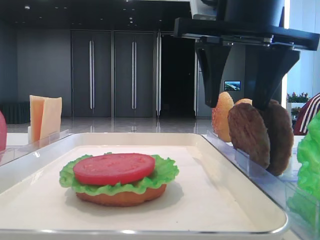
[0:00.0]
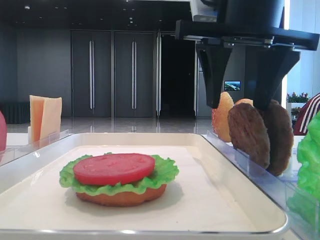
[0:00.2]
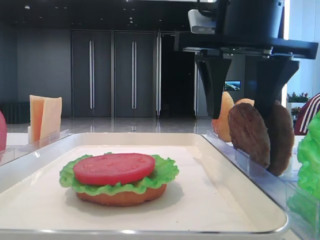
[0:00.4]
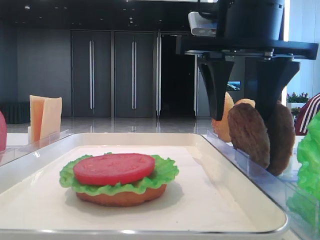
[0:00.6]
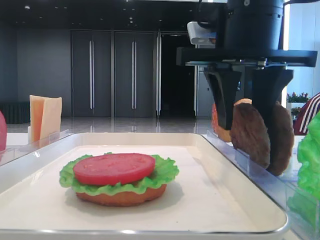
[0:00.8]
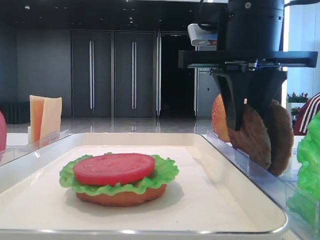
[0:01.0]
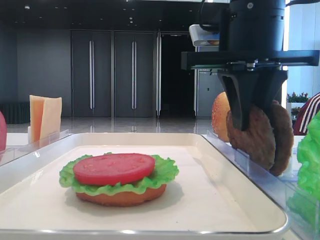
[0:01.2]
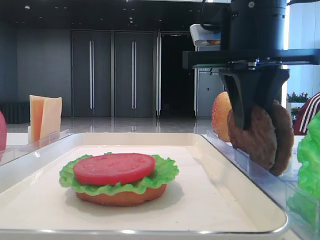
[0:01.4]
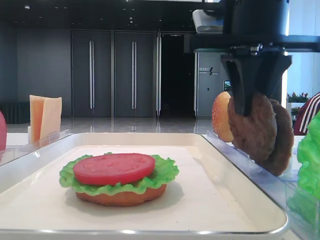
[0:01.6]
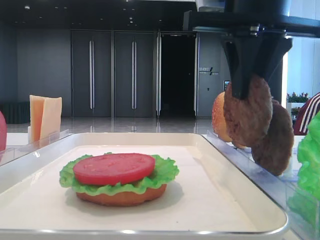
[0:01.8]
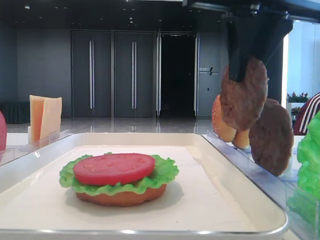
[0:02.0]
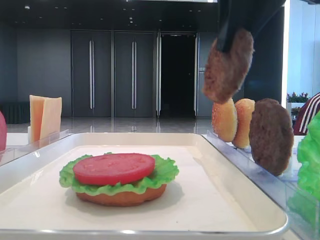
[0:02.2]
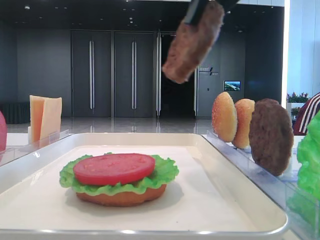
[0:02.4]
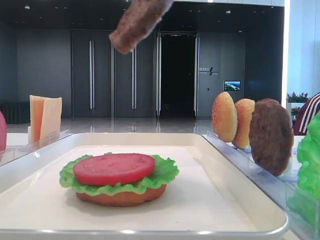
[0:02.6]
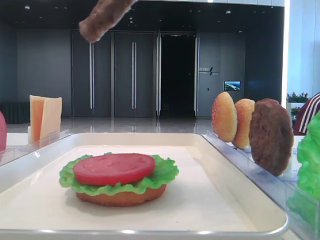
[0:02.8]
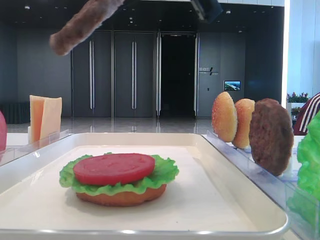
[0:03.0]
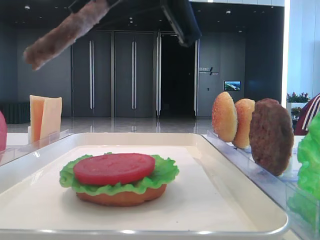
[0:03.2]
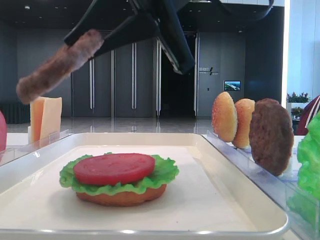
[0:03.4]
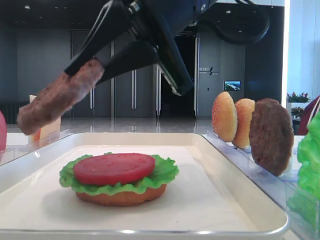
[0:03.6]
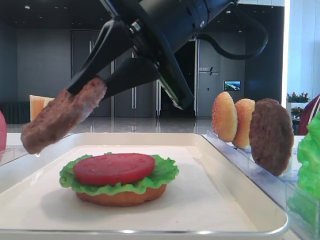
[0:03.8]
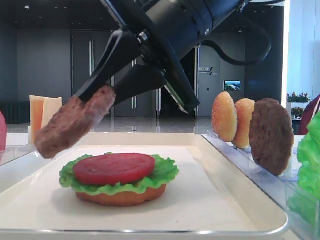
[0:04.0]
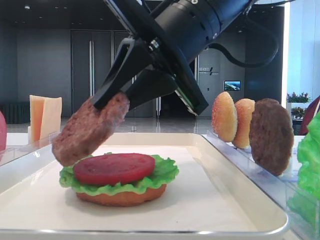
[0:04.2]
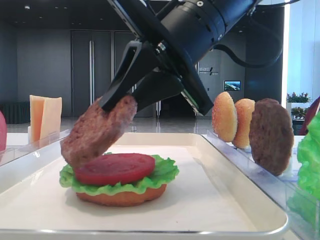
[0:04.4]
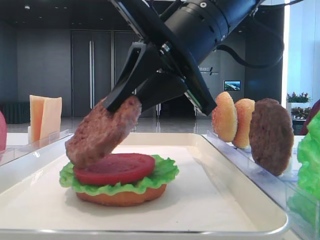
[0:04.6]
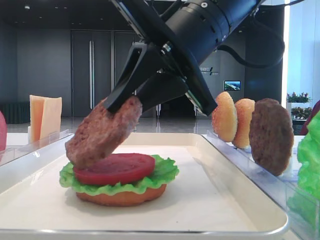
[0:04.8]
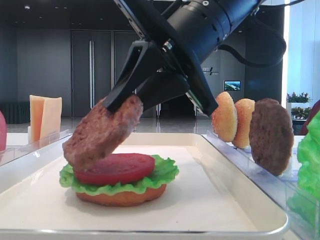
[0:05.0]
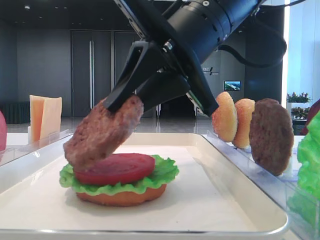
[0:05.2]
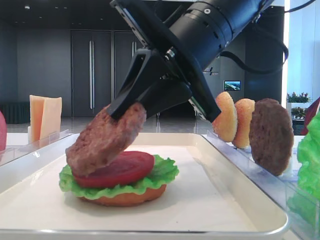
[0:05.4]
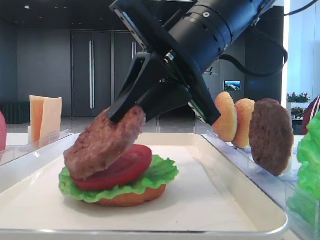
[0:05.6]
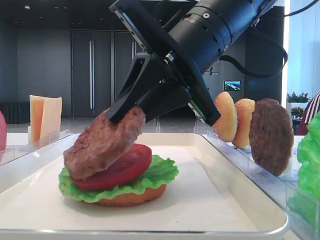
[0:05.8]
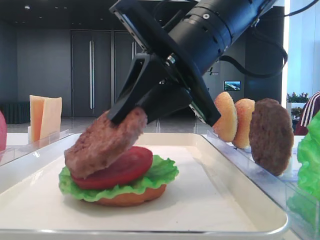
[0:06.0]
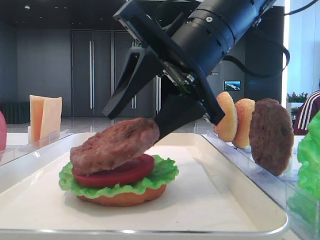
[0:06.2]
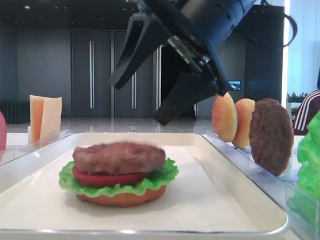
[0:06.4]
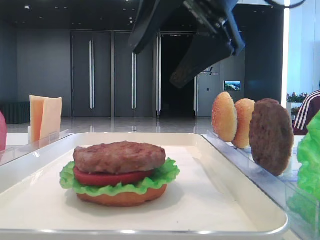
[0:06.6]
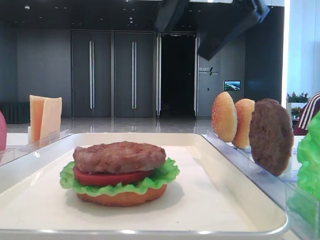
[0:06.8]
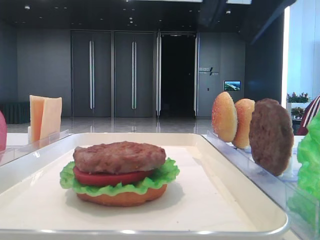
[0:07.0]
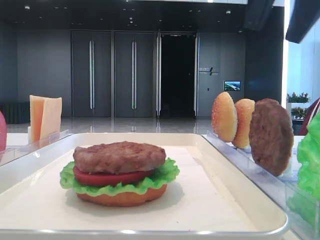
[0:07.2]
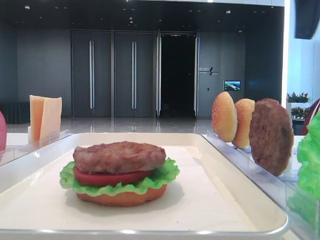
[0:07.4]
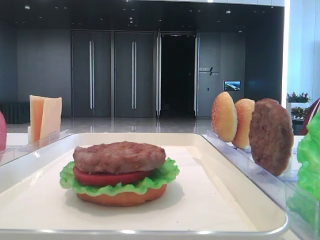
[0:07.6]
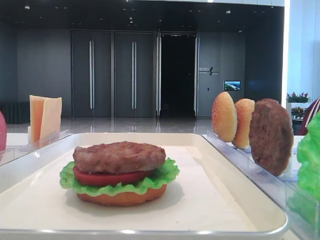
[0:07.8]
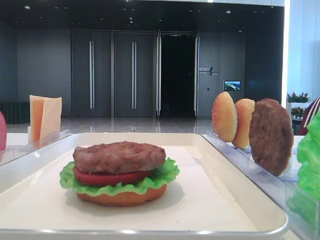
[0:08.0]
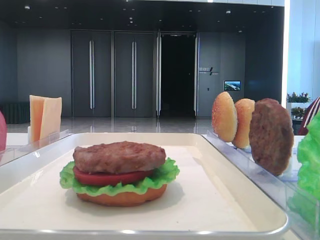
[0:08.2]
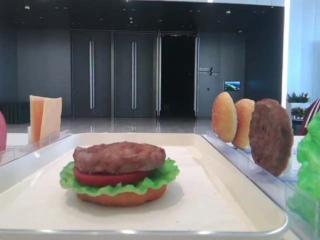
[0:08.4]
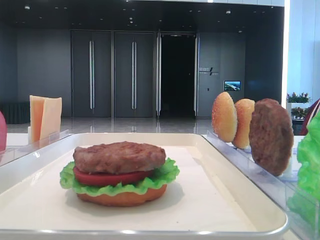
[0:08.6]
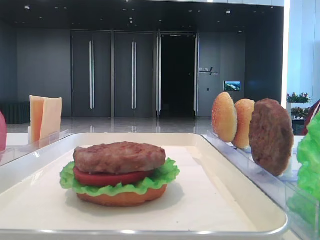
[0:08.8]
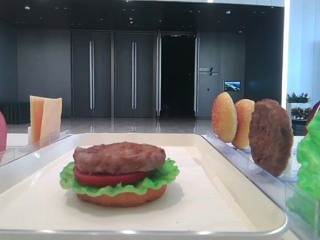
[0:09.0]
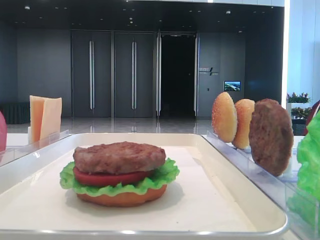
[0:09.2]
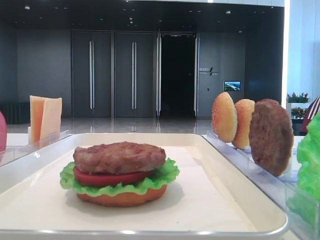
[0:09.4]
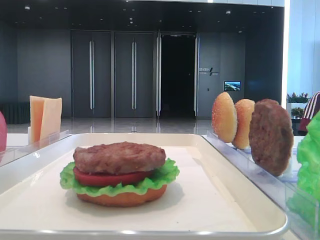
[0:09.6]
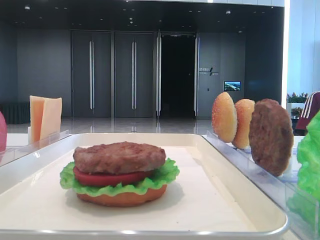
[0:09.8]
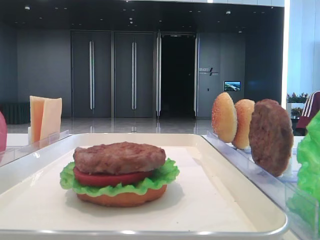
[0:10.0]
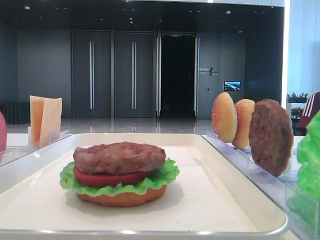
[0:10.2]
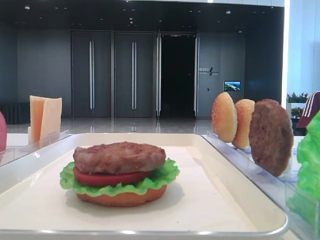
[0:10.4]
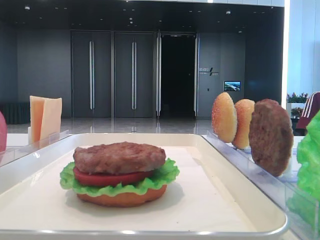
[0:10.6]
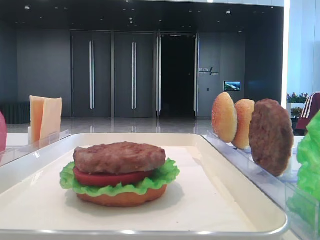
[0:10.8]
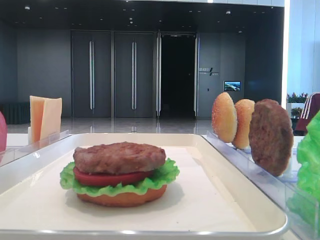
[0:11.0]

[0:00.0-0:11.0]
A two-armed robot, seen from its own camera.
Step, 0:01.4 to 0:06.2: Place the patty on the tomato slice with the right hand.
0:00.0 to 0:01.6: The right gripper closes.
0:01.6 to 0:03.2: The right gripper moves to the left, roughly 5 cm.
0:03.2 to 0:04.8: The right gripper goes some 5 cm downward.
0:04.8 to 0:06.2: The right gripper opens its fingers.
0:06.2 to 0:07.8: The right gripper goes some 30 cm to the right and upward, and opens up.
